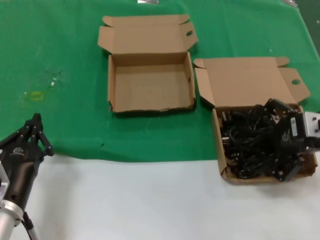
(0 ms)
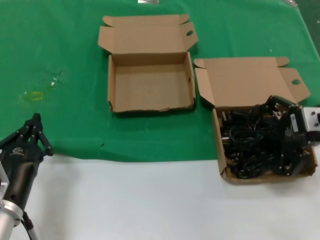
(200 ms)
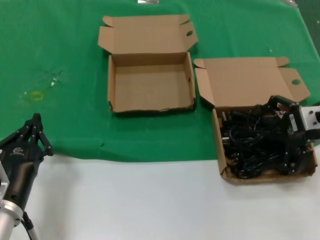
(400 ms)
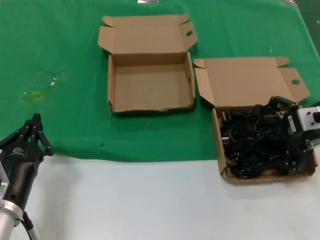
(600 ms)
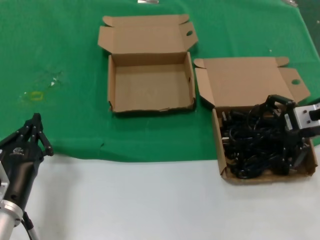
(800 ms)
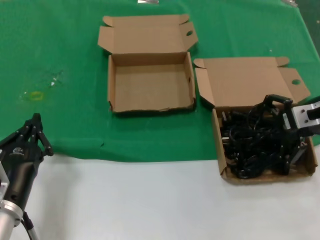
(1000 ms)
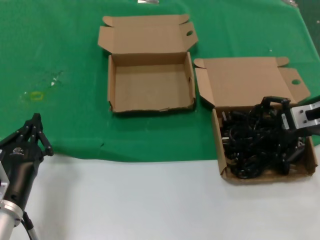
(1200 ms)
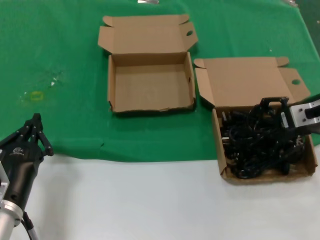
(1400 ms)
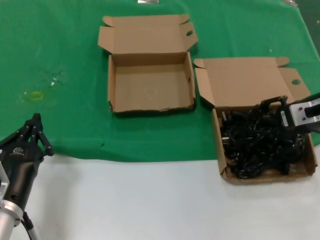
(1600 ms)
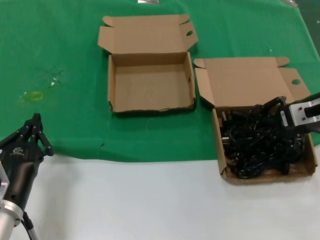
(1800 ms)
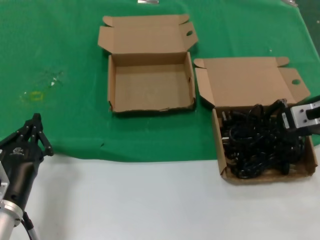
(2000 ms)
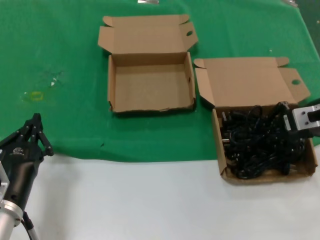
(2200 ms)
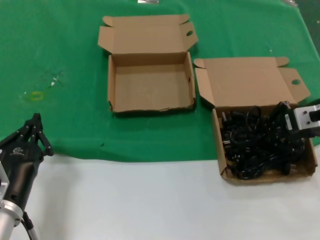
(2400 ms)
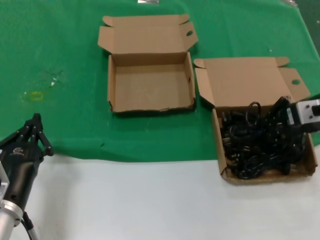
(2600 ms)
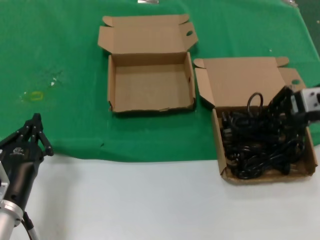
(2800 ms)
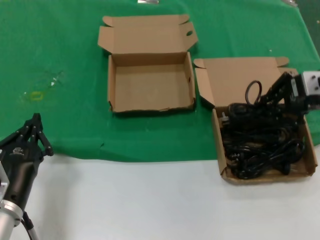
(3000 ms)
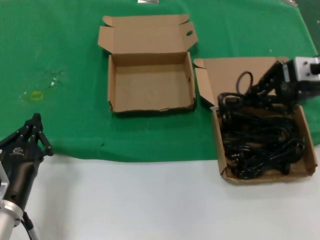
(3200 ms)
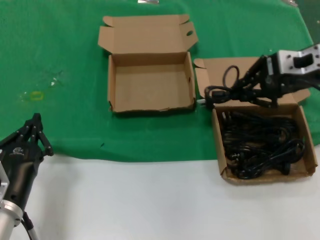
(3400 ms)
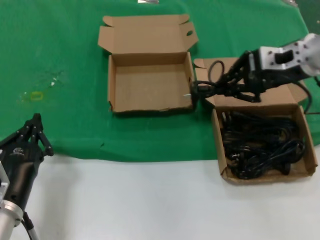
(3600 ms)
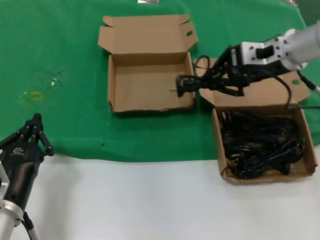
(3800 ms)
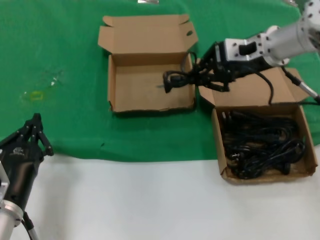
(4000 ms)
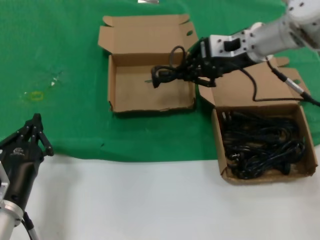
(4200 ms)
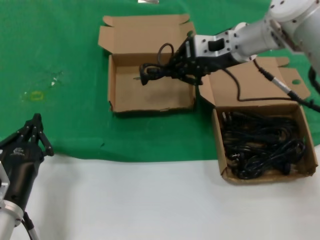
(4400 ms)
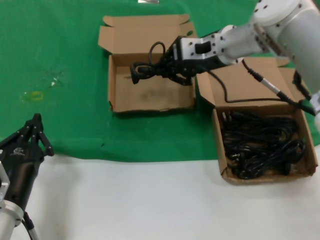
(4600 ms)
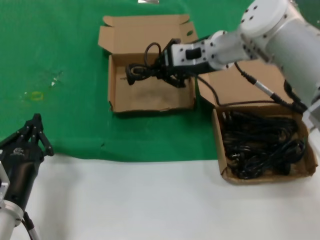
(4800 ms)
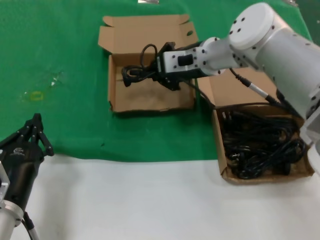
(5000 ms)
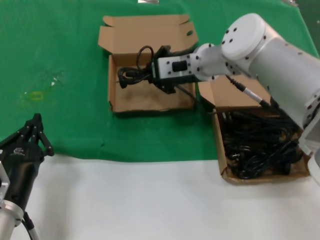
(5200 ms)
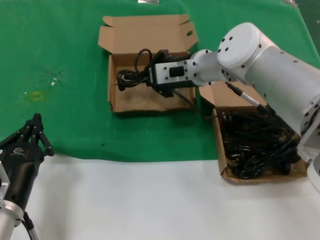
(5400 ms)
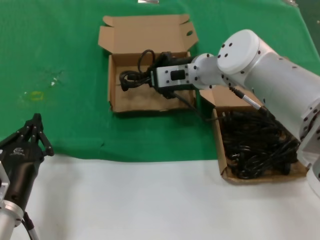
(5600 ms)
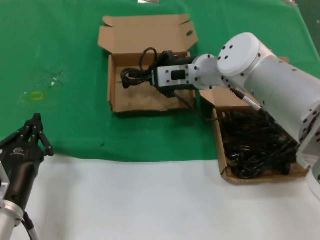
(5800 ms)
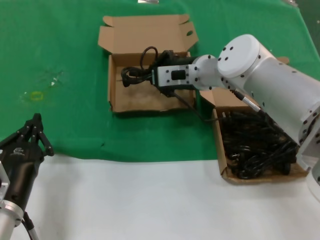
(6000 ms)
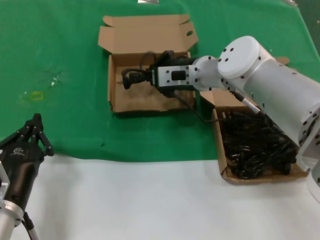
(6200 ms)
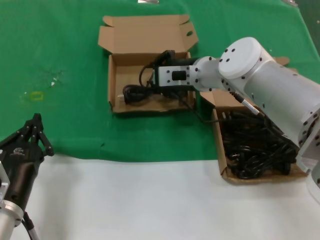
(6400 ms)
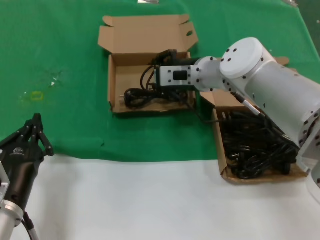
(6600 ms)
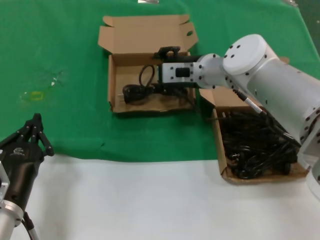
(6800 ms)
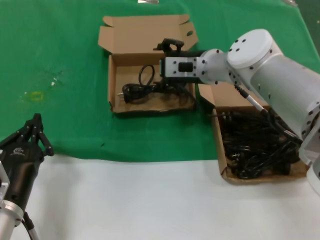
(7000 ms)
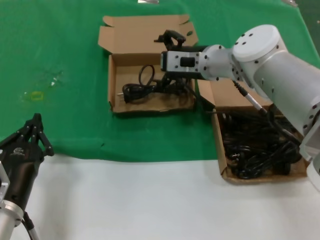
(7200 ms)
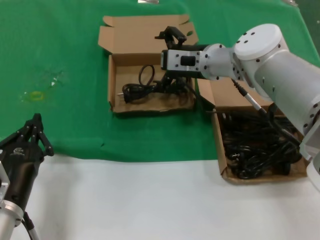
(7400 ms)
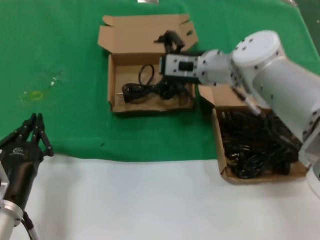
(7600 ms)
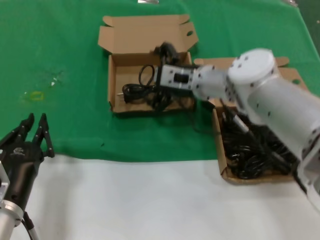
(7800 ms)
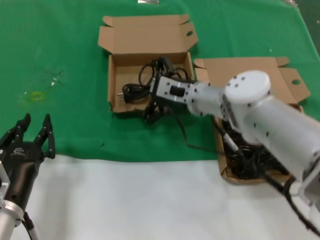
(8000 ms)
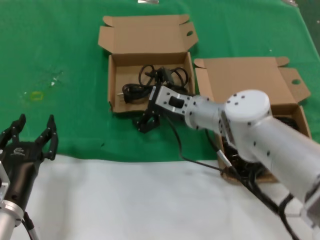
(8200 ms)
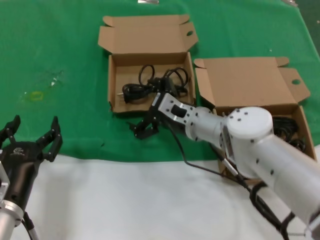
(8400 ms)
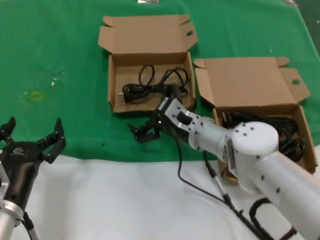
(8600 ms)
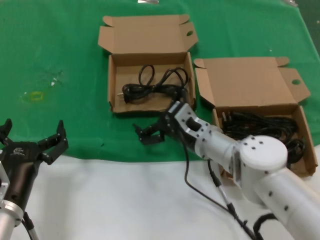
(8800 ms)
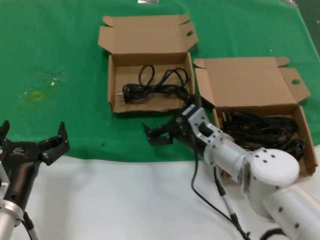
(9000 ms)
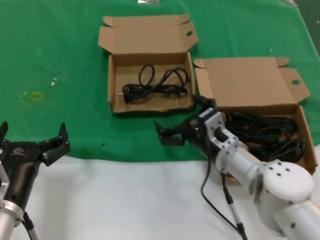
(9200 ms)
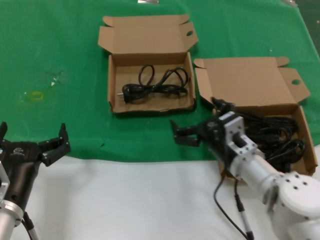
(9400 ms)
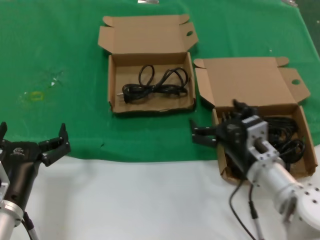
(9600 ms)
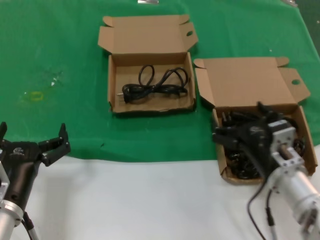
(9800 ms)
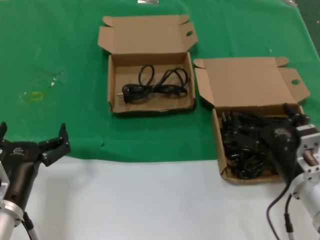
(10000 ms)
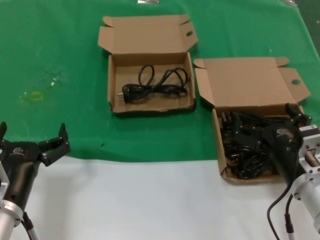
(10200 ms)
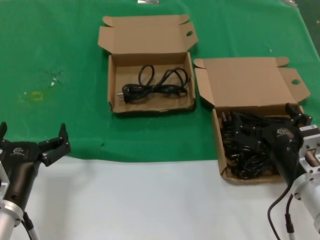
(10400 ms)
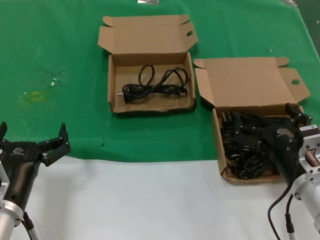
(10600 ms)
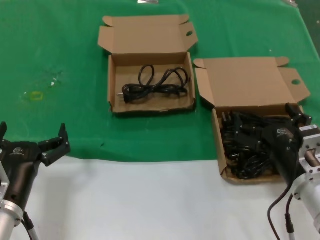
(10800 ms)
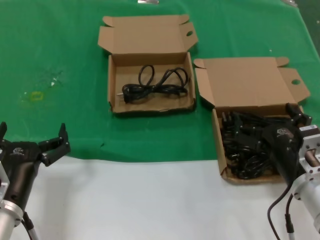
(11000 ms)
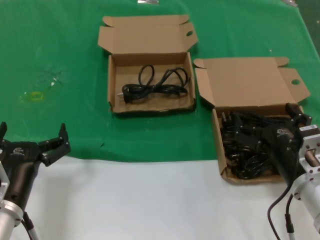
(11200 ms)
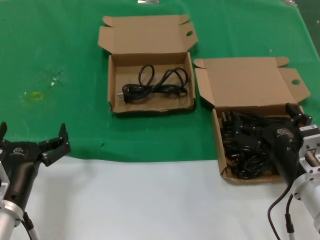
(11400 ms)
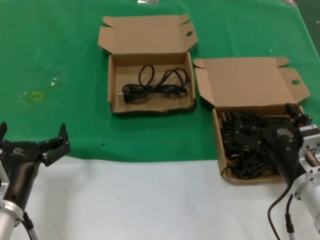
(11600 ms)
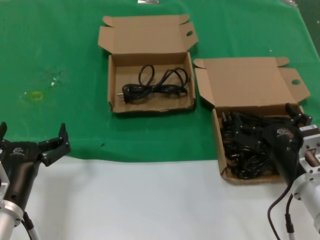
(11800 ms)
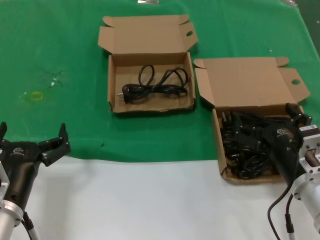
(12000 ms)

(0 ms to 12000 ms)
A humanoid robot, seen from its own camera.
Task of the whole recording: take the parts from the box containing them and put them into an empty box.
Step, 2000 ms - 6400 ms: Place the data cable in the another box.
0 ms - 1600 ms: The right hand is displaced forward by about 10 cm.
1600 ms - 3000 ms: The right hand shifts roughly 5 cm upward.
3000 ms - 4400 ms: The right hand moves to the left and forward, about 20 cm.
4400 ms - 6000 ms: The right hand moves downward and to the left, approximately 10 cm.
6000 ms - 7600 ms: There are only small adjustments of the hands.
7600 ms - 9000 ms: The right hand heads downward and backward, covering roughly 20 cm.
9000 ms - 10400 ms: The right hand travels backward and to the right by roughly 20 cm.
10400 ms - 12000 ms: The two hands keep their place.

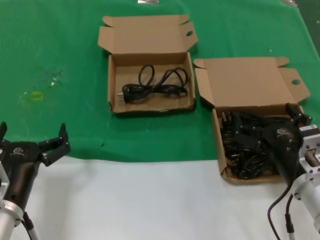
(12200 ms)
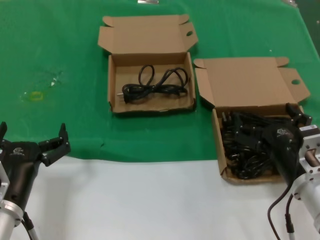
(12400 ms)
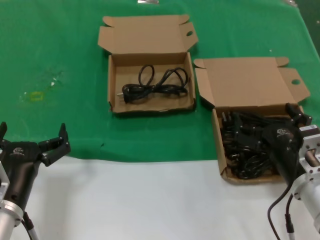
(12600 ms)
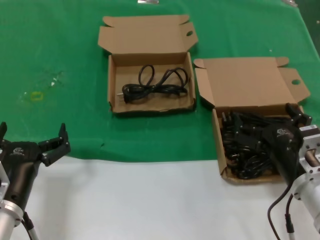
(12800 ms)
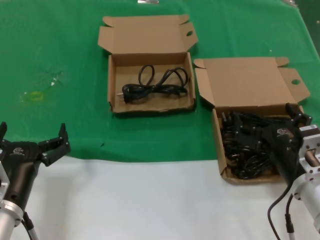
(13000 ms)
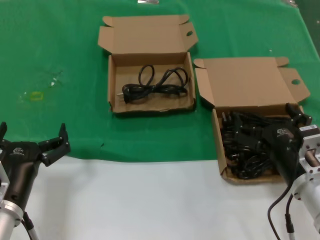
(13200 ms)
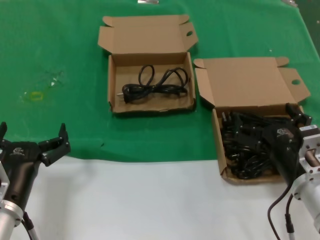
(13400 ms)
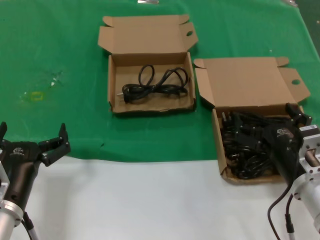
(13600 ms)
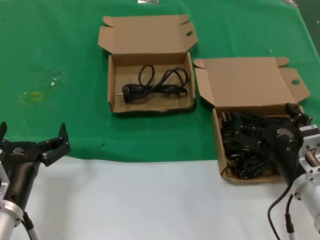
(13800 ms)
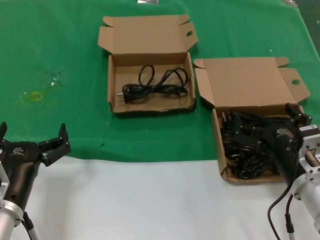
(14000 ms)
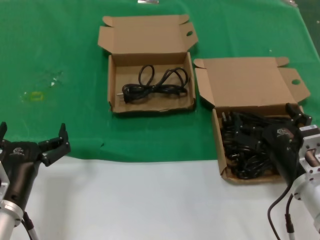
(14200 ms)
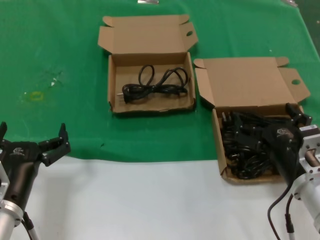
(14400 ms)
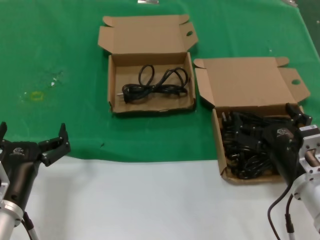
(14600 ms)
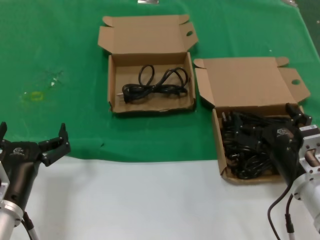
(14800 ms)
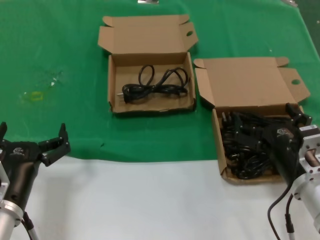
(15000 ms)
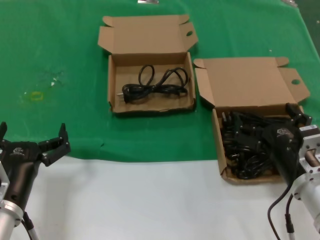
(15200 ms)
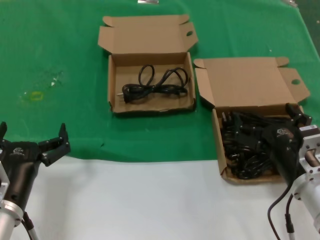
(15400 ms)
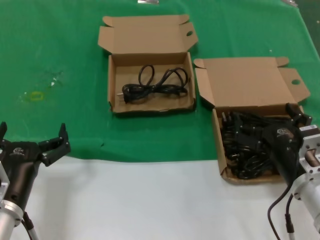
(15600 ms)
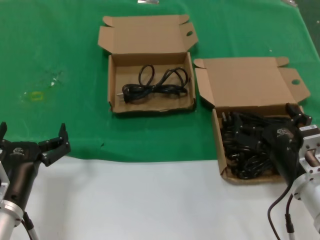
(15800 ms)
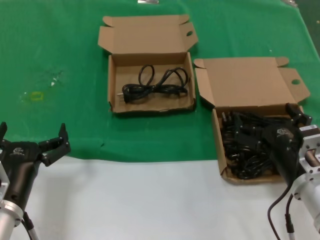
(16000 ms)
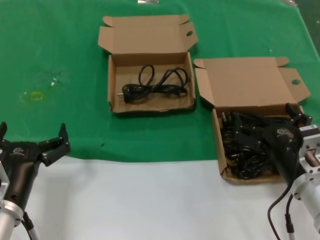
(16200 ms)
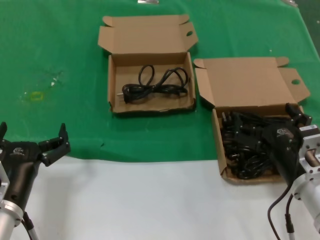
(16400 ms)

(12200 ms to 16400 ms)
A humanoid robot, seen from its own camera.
Task of the whole recording: take the parts from the box containing them and put them into an empty box.
12200 ms - 16400 ms: The two hands keep their place.

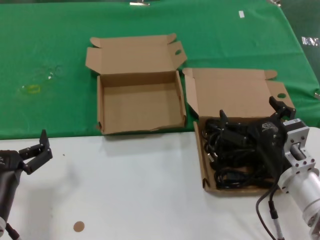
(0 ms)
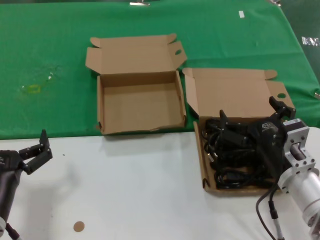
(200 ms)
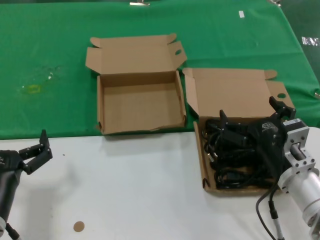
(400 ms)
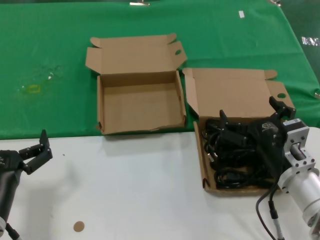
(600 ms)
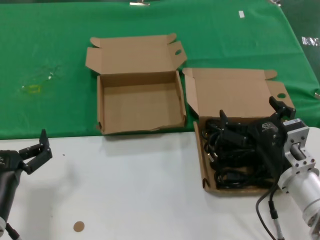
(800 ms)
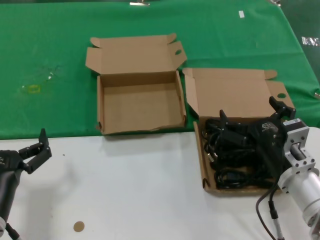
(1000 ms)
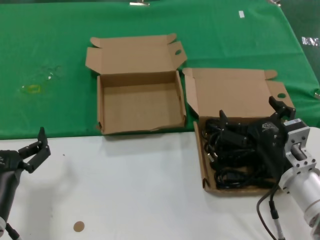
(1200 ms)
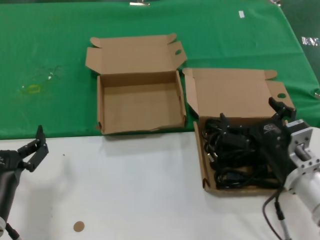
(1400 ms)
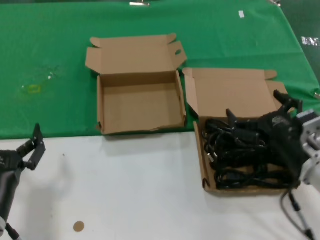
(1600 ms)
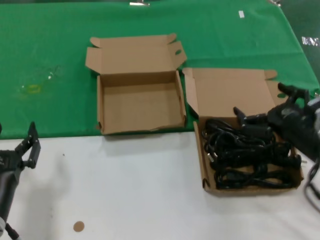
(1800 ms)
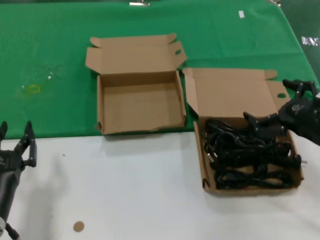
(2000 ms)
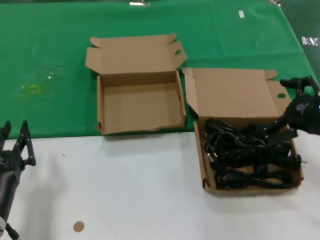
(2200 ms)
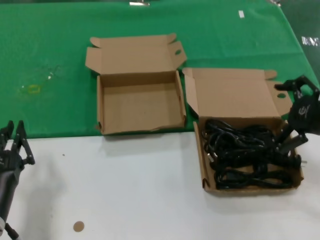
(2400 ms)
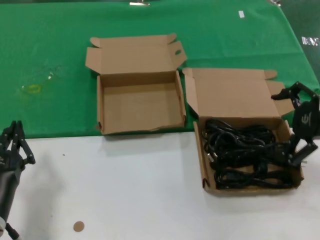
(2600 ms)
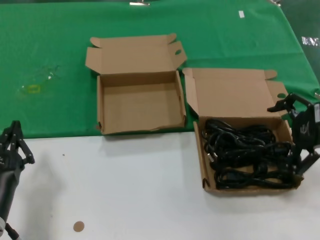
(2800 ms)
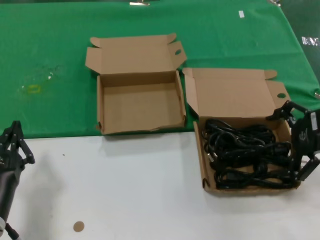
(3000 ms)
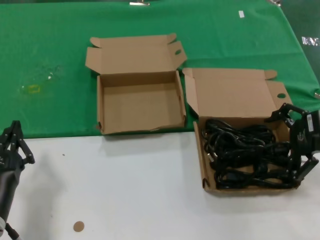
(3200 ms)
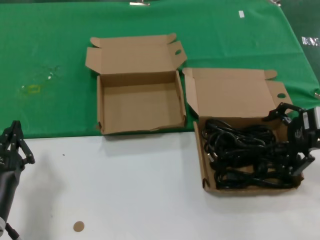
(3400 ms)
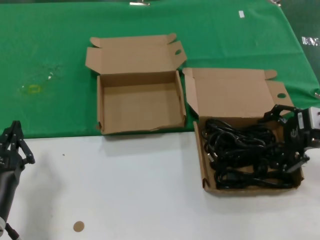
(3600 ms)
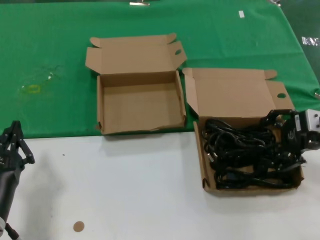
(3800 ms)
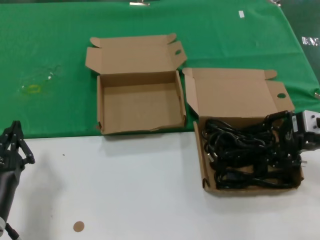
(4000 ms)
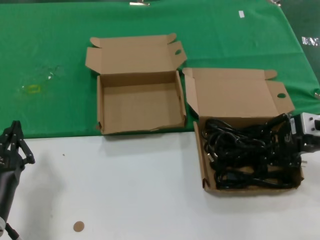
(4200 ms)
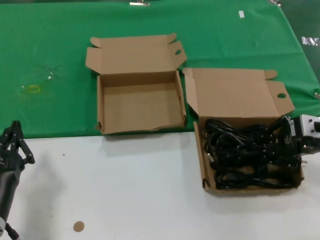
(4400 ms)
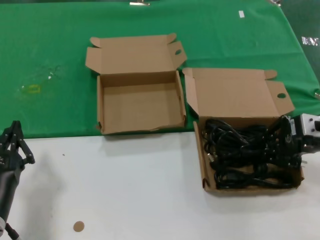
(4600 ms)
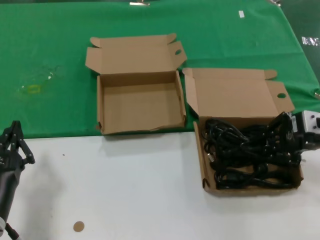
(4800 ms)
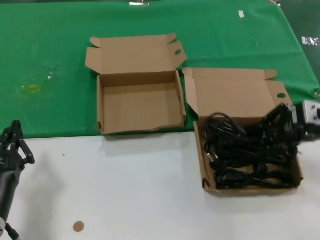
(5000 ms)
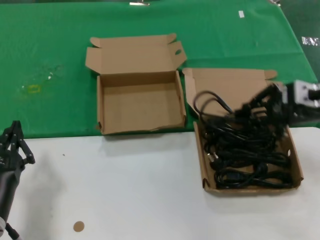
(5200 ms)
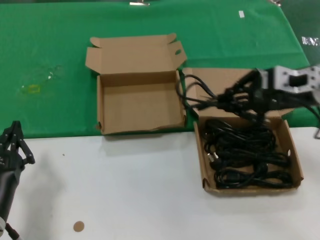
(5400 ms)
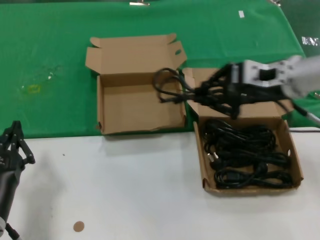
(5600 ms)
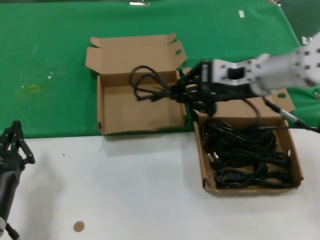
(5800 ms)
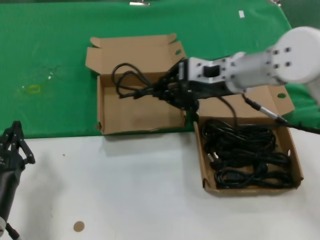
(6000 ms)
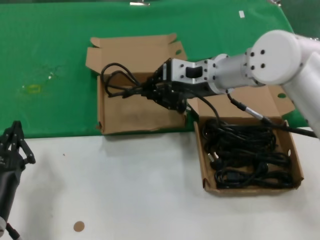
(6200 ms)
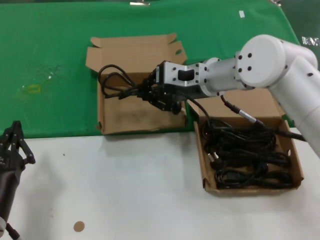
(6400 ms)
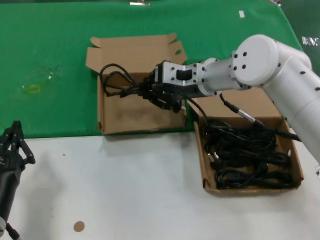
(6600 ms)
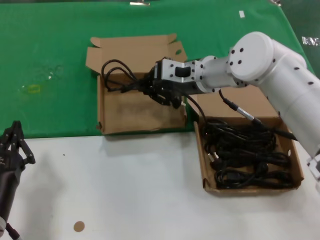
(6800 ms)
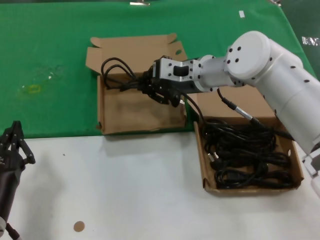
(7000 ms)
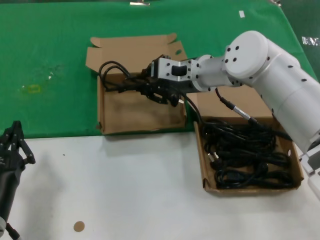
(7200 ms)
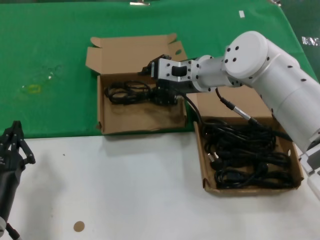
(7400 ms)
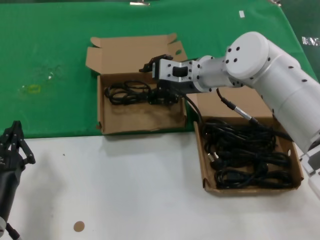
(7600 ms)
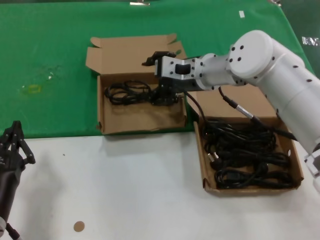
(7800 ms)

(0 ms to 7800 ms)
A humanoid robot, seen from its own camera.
Task of the whole recording: take the parts from the box containing them and put them into an empty box.
Step, 0 ms - 4200 ms: Grasp the data cable.
Step, 4400 ms - 7400 ms: Place the data cable in the another box.
0 ms - 1600 ms: There are only small adjustments of the hands.
1600 ms - 3200 ms: The right hand is displaced upward, to the right and forward by some 20 cm.
3200 ms - 4600 ms: There are only small adjustments of the hands.
4600 ms - 6200 ms: The right hand travels to the left and forward by roughly 25 cm.
6200 ms - 7800 ms: The right hand changes place by roughly 5 cm.
